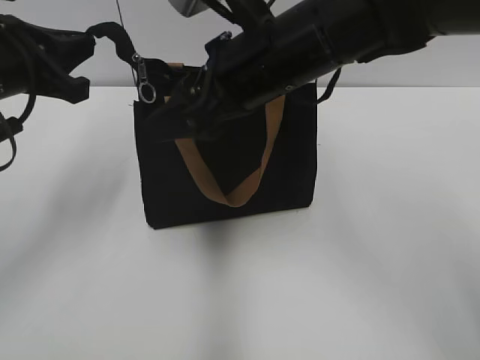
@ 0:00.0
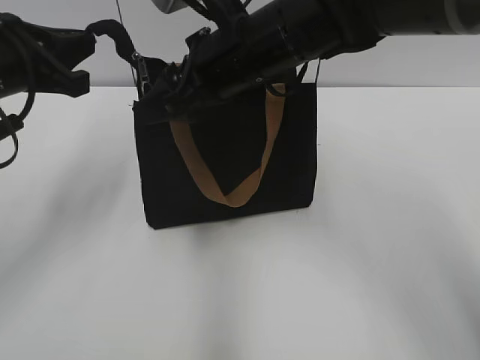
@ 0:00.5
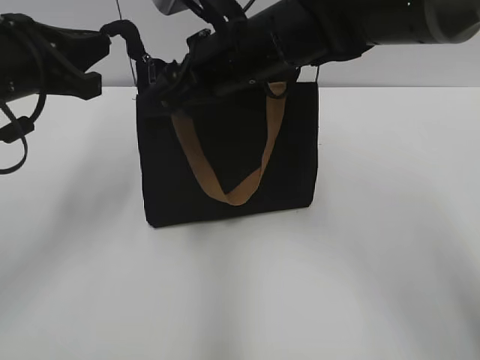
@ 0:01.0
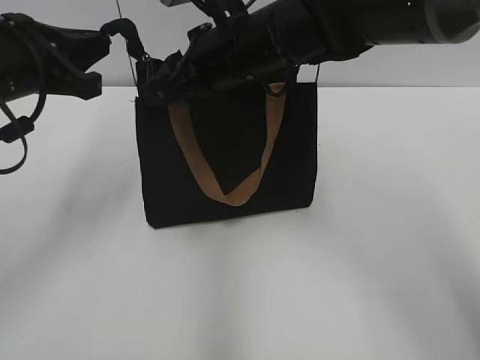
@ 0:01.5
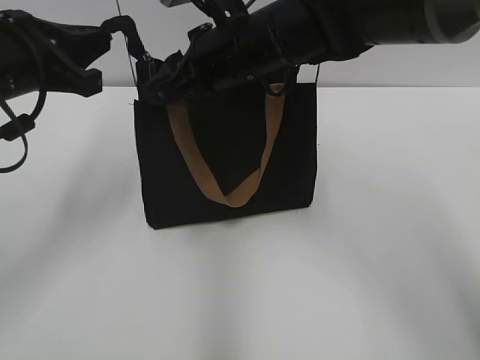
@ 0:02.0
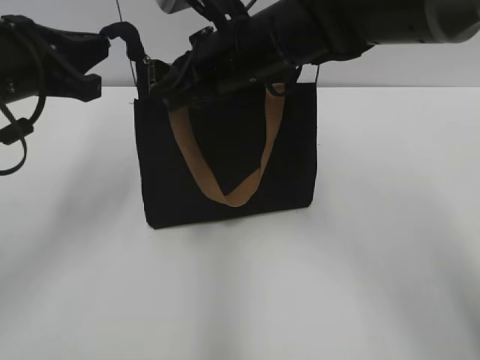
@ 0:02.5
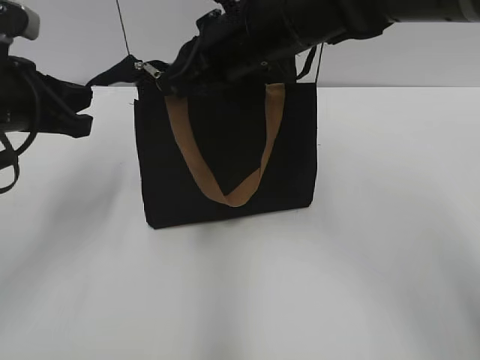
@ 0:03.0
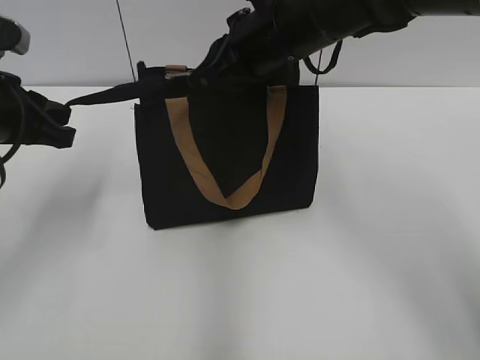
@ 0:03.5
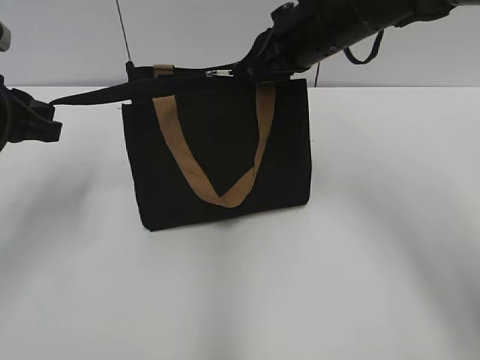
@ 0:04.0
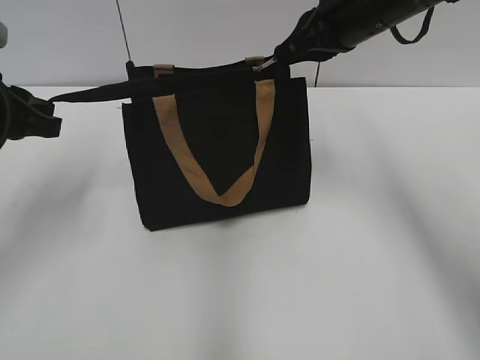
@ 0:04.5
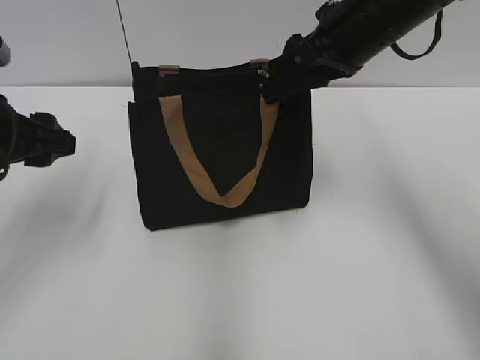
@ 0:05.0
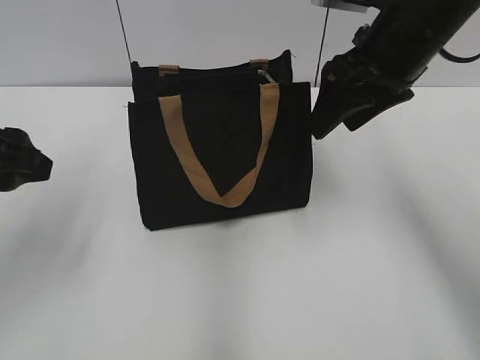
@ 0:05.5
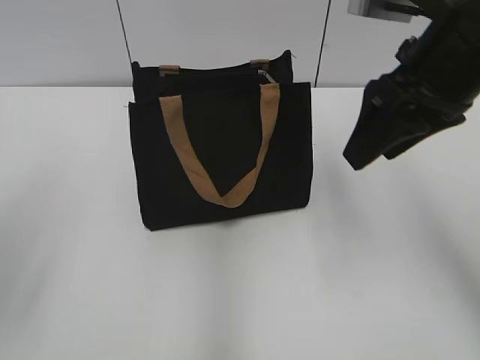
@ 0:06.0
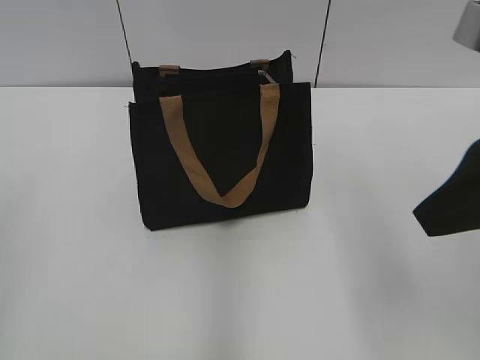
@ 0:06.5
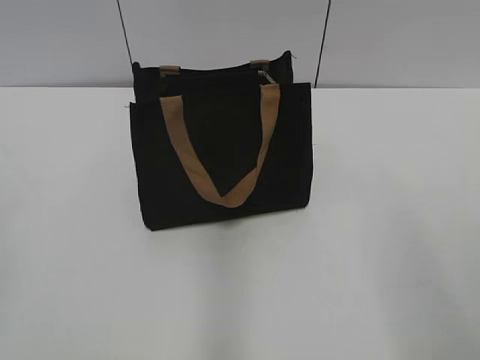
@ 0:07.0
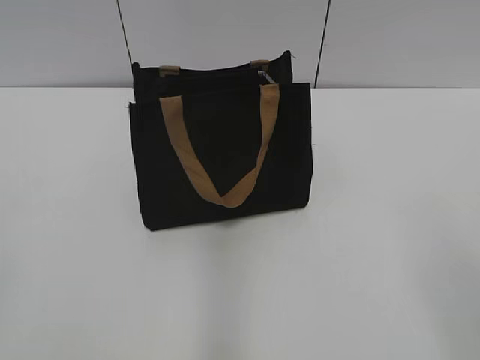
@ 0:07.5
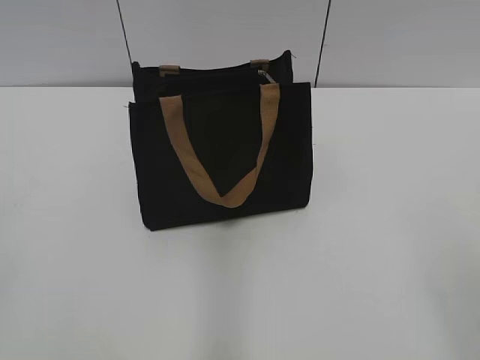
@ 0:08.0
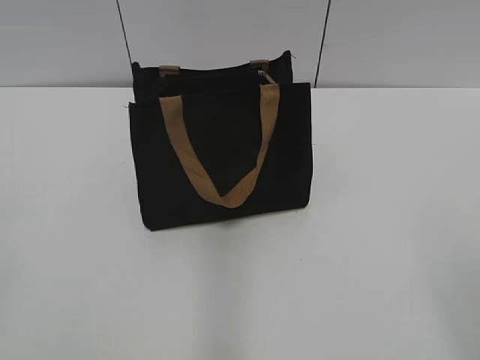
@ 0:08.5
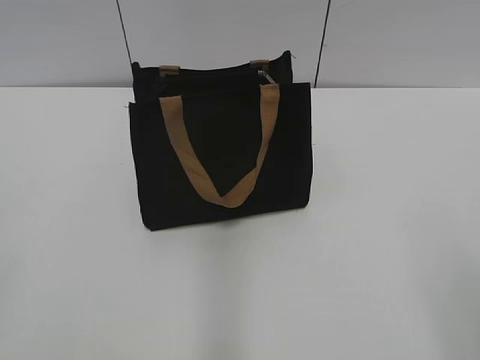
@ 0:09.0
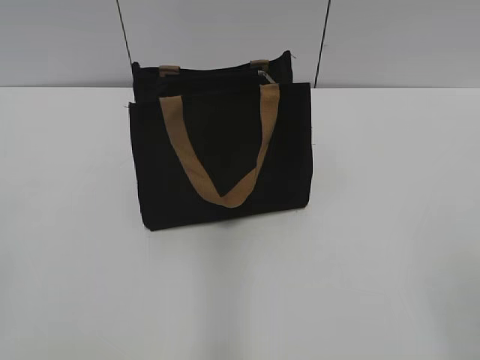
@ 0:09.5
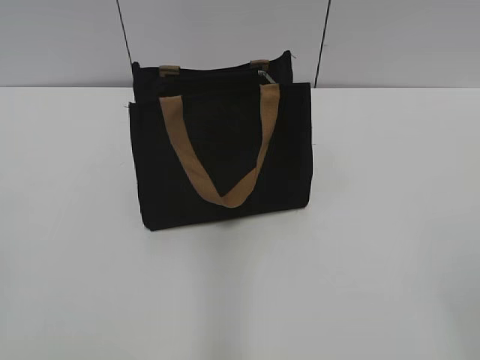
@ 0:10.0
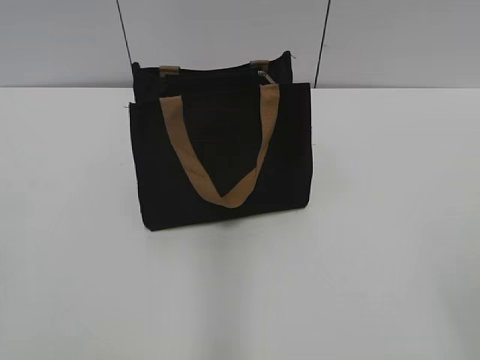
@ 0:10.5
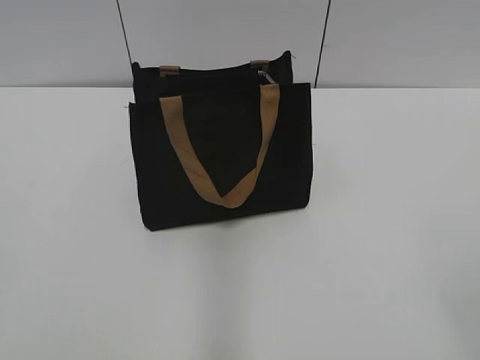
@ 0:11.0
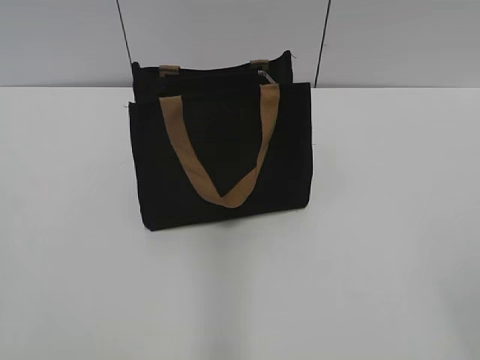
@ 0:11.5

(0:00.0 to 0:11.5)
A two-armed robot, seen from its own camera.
Step, 0:00.0 - 0:04.5: Grab the zipper with your left hand.
0:00.0 - 0:02.0: The right gripper travels forward by roughly 5 cm, and closes.
0:02.0 - 0:04.0: The left gripper ends up about 5 cm from where it was. Meanwhile the right gripper travels to the right by roughly 10 cm, and closes its fingers.
0:04.0 - 0:06.0: The left gripper goes approximately 15 cm backward and upward, and opens up, while the right gripper moves backward and to the right, approximately 15 cm, and opens.
0:06.0 - 0:07.5: The right gripper moves backward, some 25 cm.
